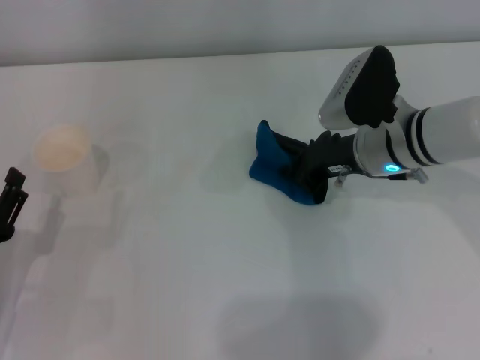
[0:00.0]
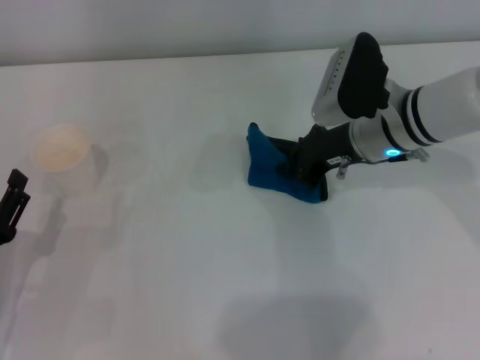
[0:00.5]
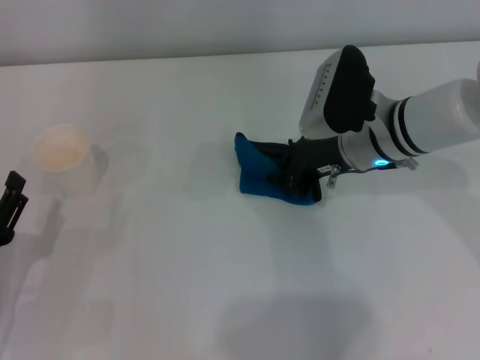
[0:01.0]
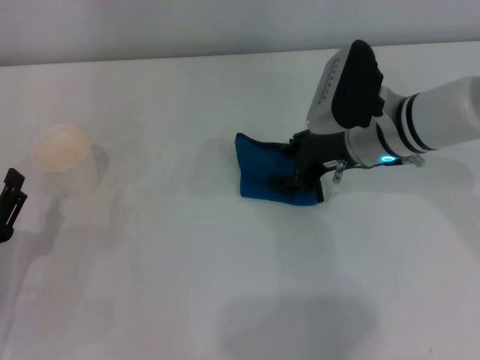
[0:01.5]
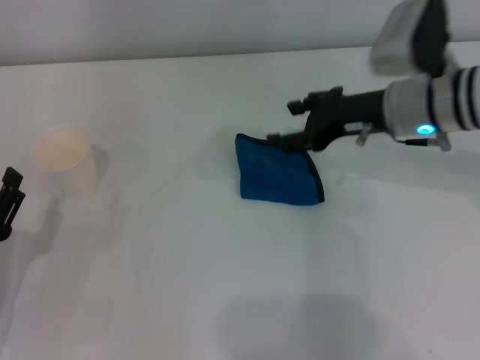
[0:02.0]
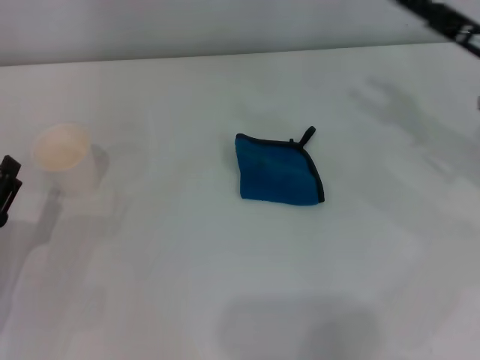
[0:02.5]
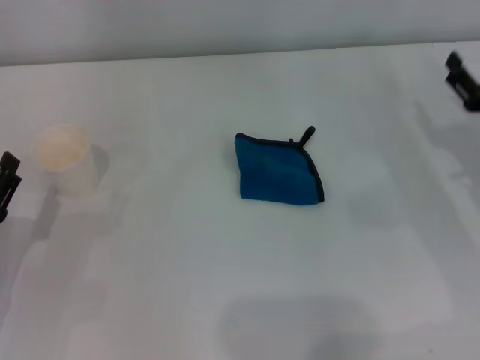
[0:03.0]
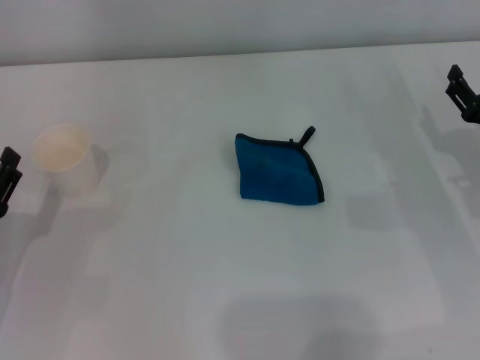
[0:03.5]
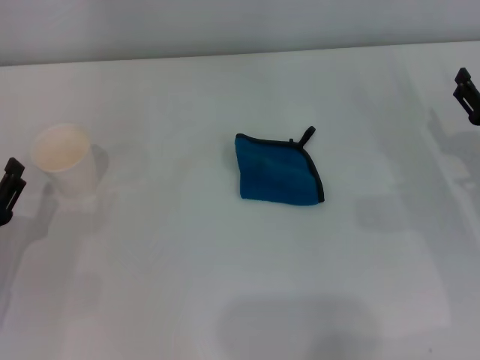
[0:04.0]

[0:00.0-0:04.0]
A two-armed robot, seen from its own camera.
Step, 0:01.0 to 0:01.5: Place the rag on the table with the right gripper.
0:00.0 to 0:02.0: The right gripper goes approximately 5 cm upward, and opens its fingers.
0:02.0 to 0:04.0: The right gripper travels to the right, backward and downward by about 15 cm.

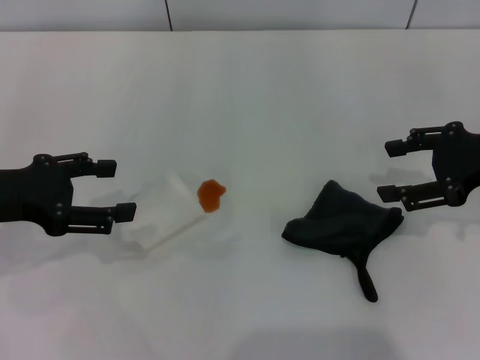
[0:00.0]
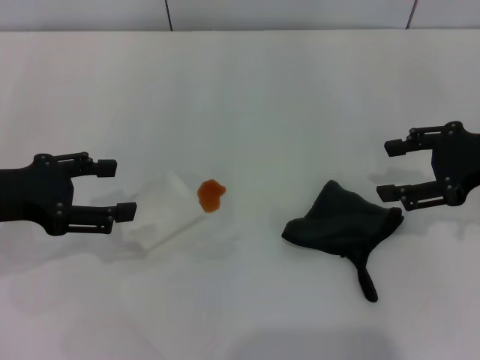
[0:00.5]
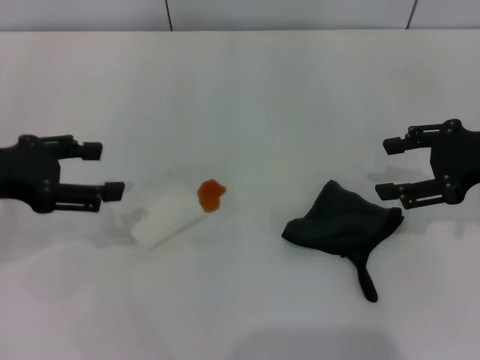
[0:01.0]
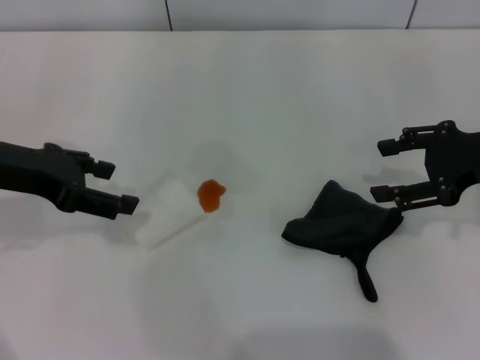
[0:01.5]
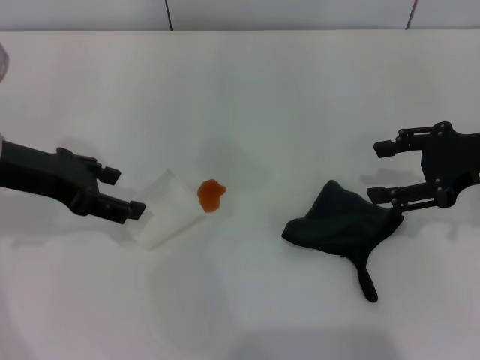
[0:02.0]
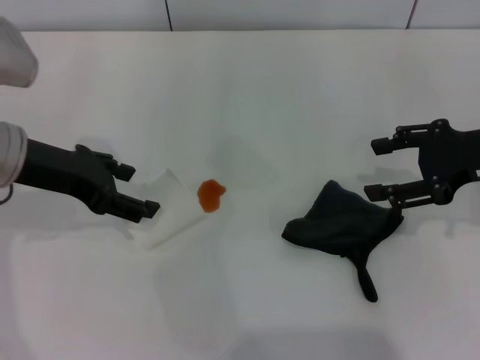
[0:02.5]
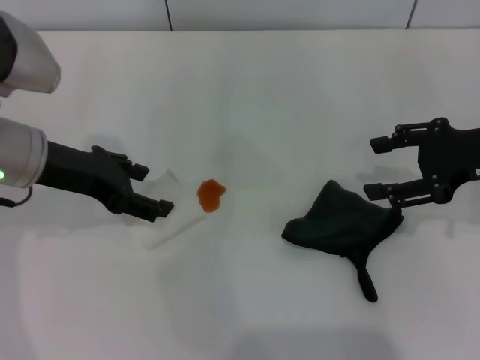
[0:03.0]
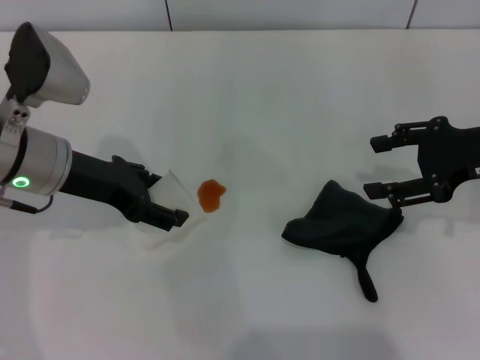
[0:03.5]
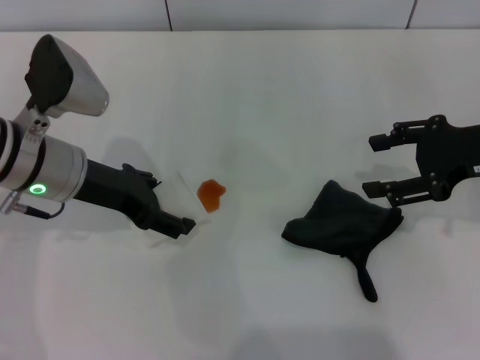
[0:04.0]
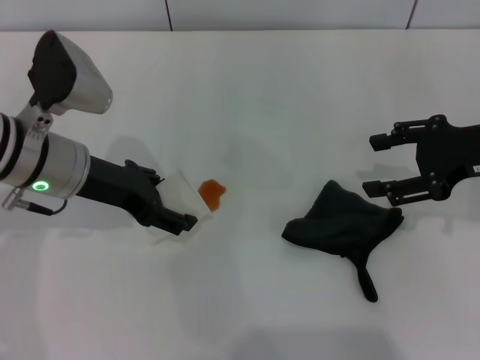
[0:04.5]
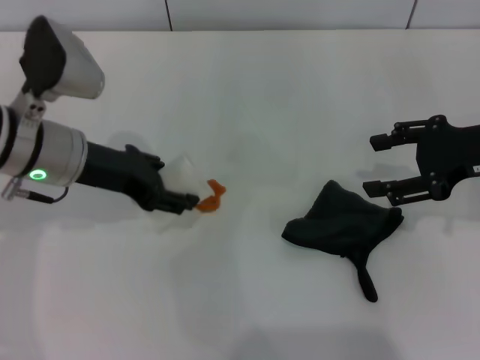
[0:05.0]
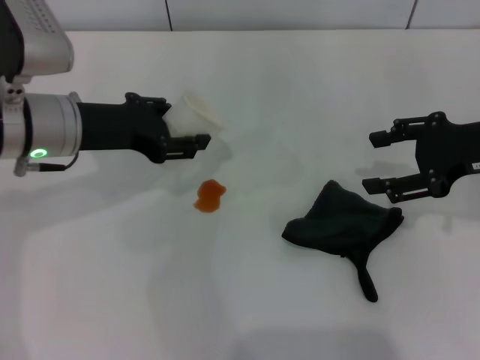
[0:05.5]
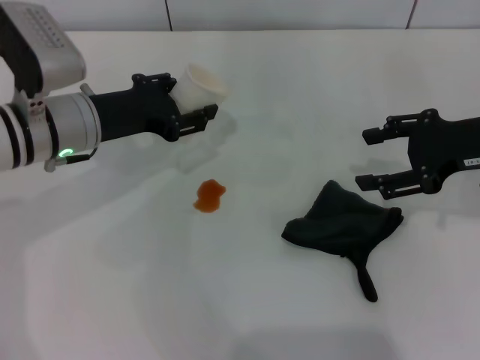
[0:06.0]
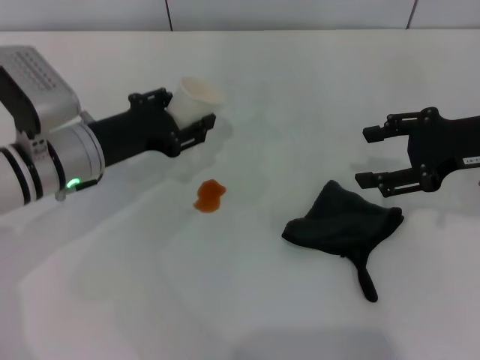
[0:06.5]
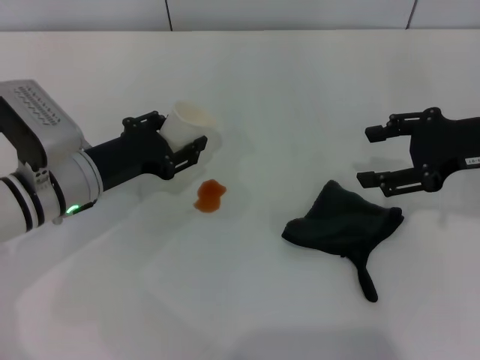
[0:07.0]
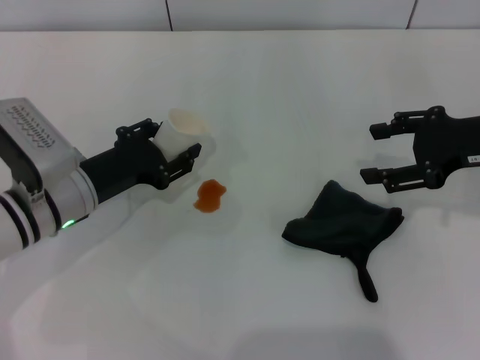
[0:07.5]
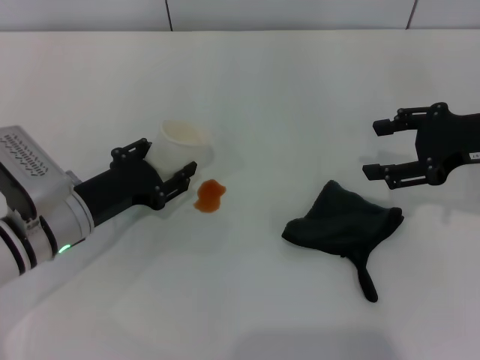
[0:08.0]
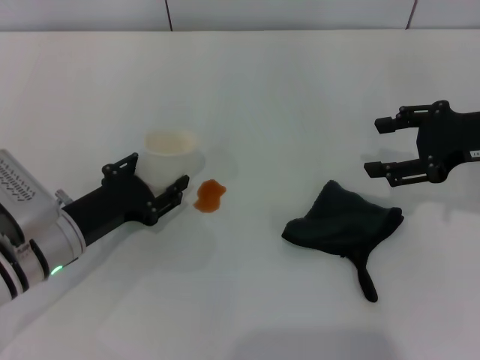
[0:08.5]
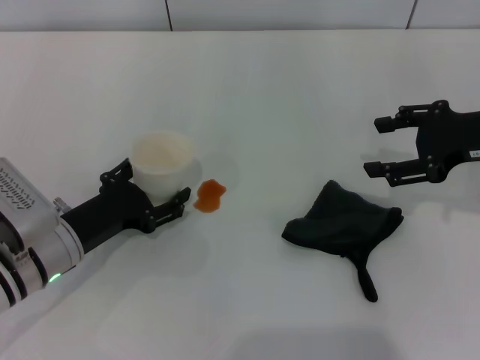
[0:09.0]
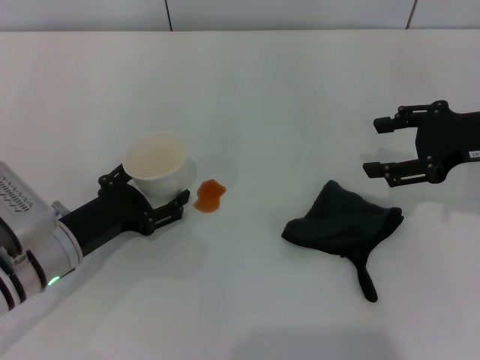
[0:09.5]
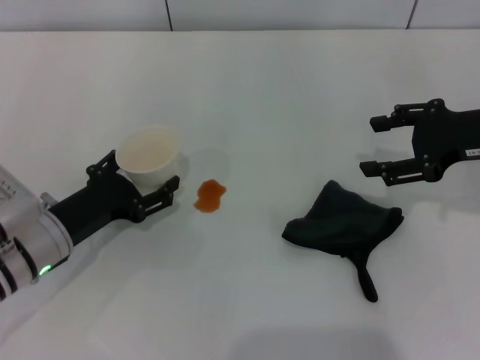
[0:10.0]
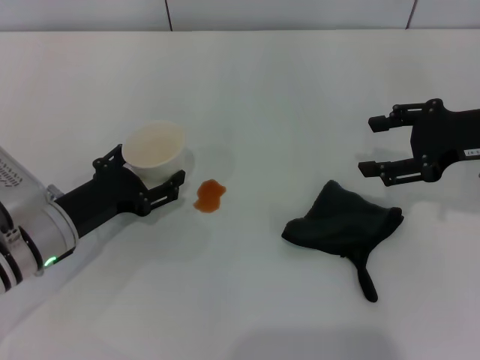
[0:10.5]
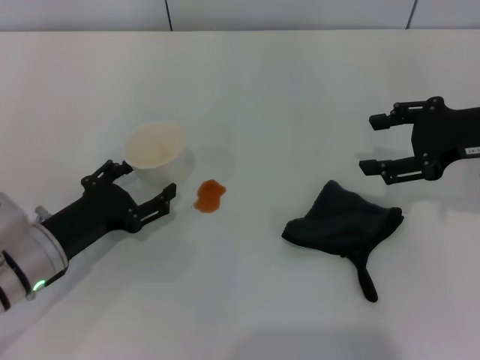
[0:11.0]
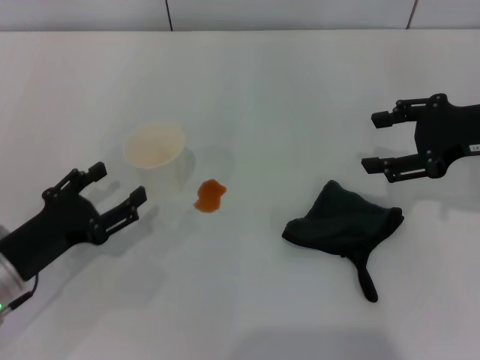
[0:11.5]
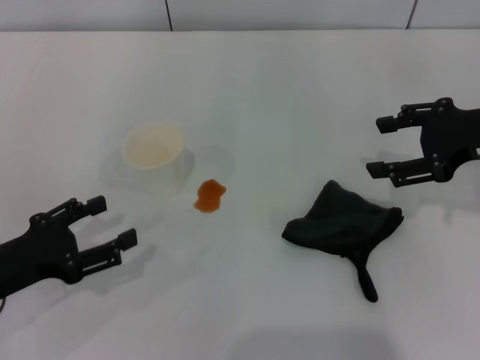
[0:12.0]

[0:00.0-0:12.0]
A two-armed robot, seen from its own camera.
Step, 0:00.0 to 0:04.5: Grasp the paper cup with the left gripper.
Step, 0:05.0 to 0:11.0: Stand the paper cup upright with the left gripper.
0:00.0 to 0:02.0: The left gripper shifts by about 5 cm.
0:02.0 to 0:04.0: The left gripper moves to the right, about 5 cm.
0:04.0 to 0:06.0: The left gripper closes up.
0:06.0 to 0:08.0: The left gripper is displaced downward and backward by roughly 10 cm.
0:08.0 to 0:10.0: The left gripper opens.
0:10.0 to 0:12.0: The left gripper heads to the left and backward, covering some 10 cm.

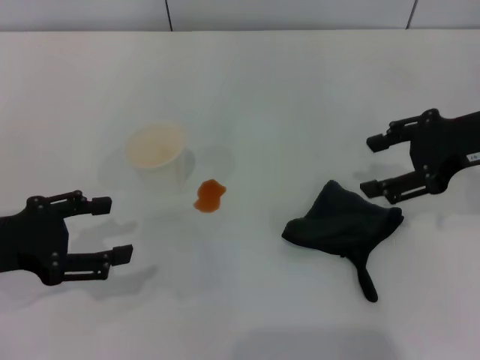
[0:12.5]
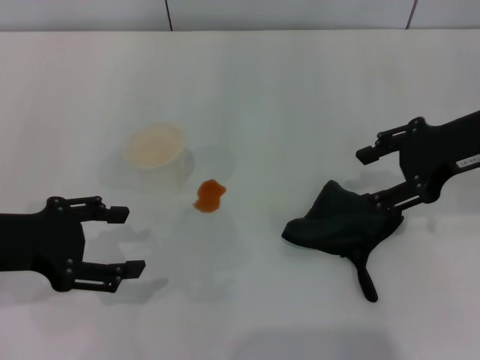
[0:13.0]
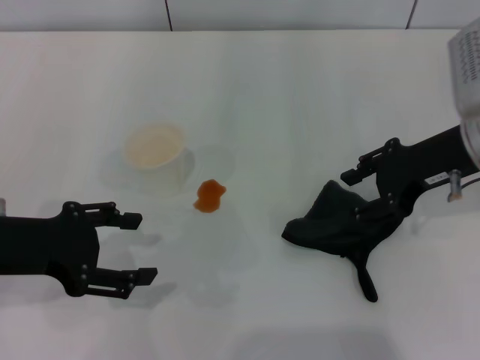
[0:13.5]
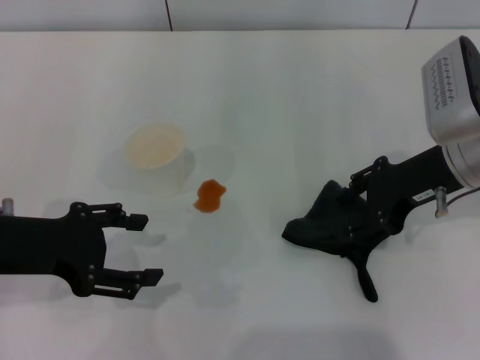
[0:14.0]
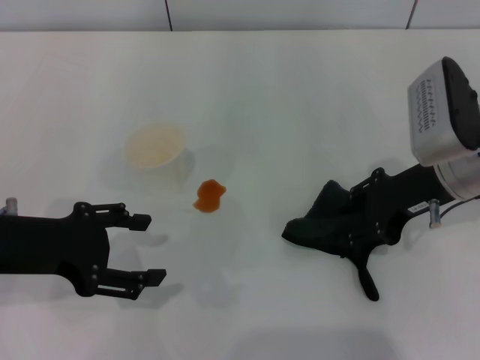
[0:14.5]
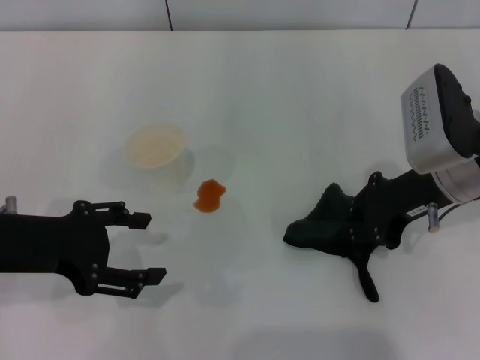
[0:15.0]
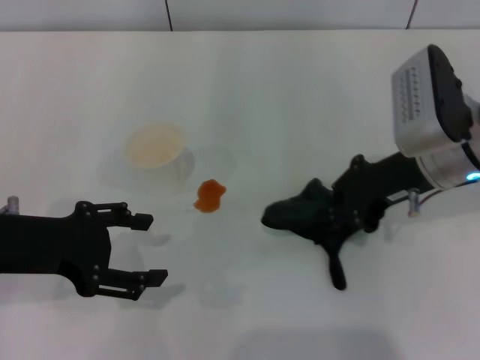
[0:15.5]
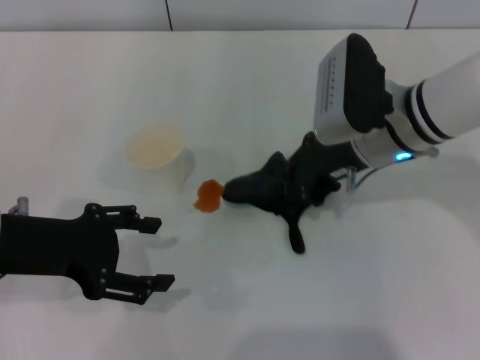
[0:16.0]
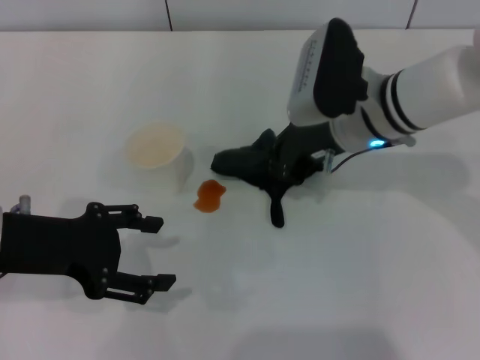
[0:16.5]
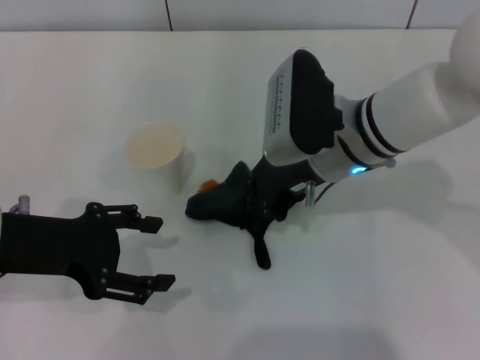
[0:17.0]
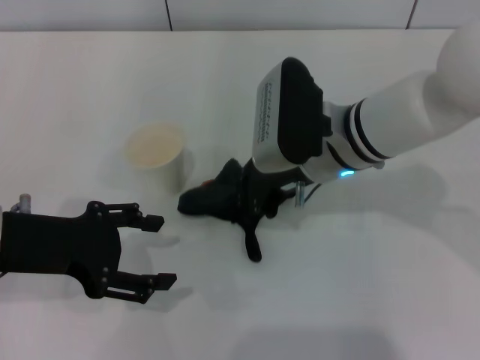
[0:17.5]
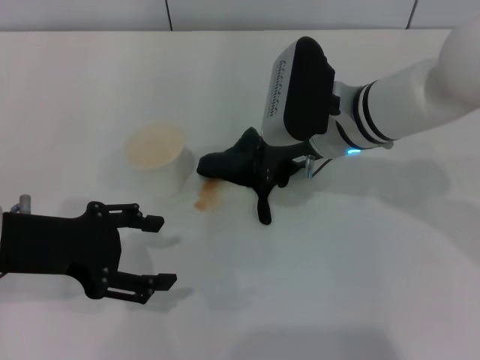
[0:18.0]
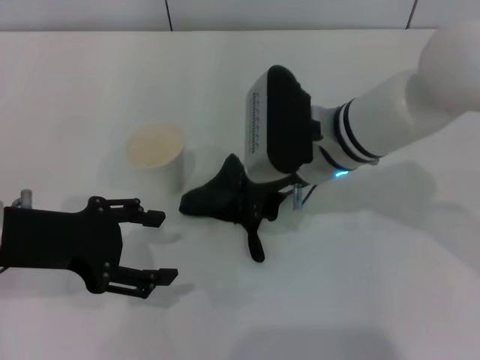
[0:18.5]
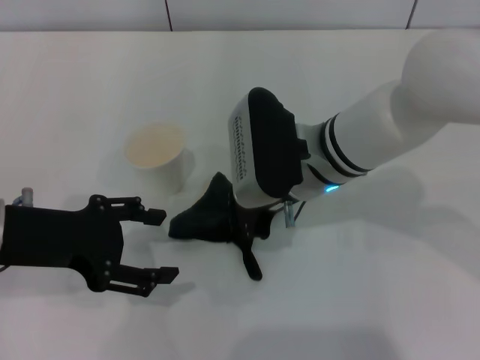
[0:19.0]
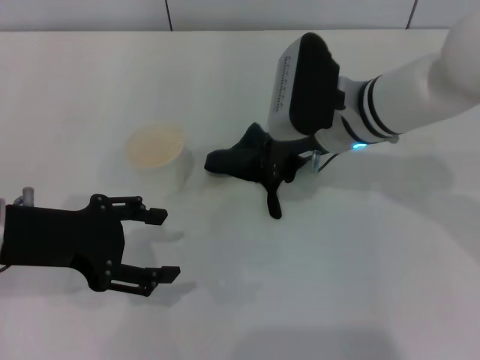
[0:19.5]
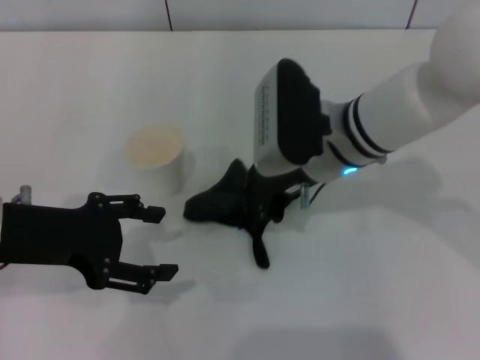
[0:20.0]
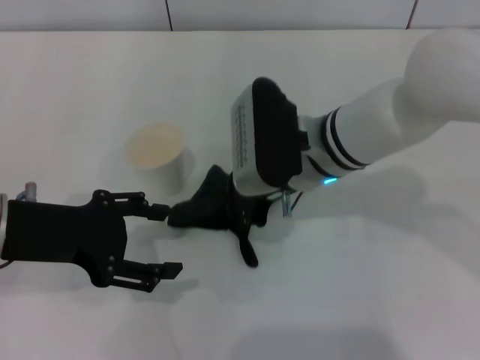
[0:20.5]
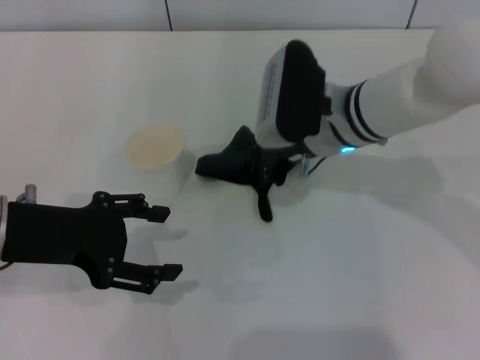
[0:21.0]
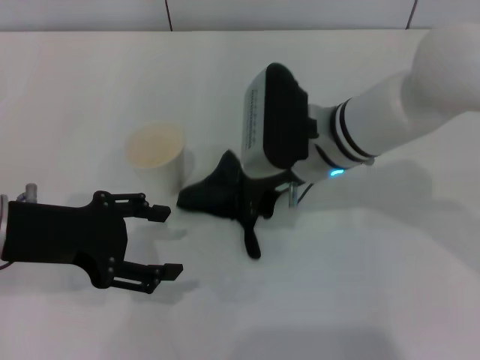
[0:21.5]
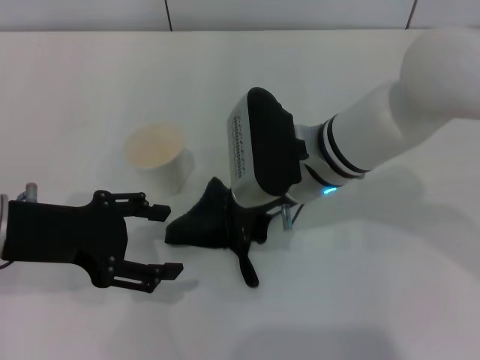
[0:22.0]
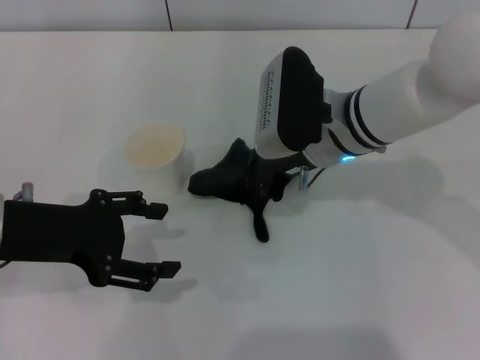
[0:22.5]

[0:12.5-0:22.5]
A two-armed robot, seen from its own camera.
Step, 0:12.5 to 0:15.0: Grasp the rag with the right gripper.
0:12.5 to 0:14.5: The right gripper moves downward and to the left, approximately 10 cm.
0:14.5 to 0:16.5: The right gripper moves to the left, about 10 cm, and closes up.
0:16.5 to 0:18.5: The right gripper shifts by roughly 5 cm.
0:18.5 to 0:22.5: The grippers stay close to where they were, moving slightly.
